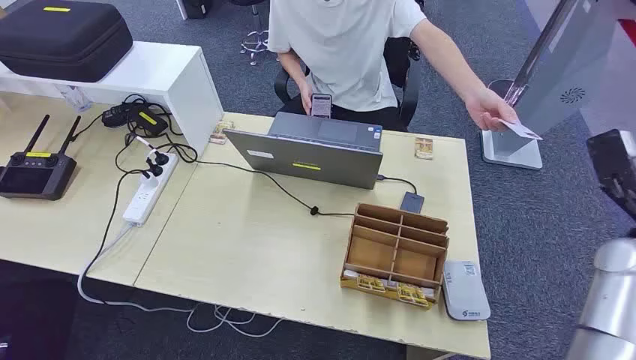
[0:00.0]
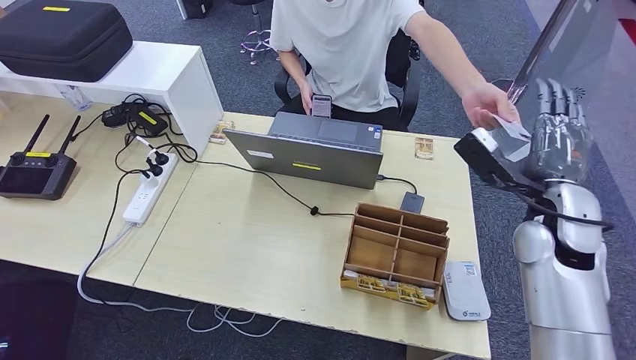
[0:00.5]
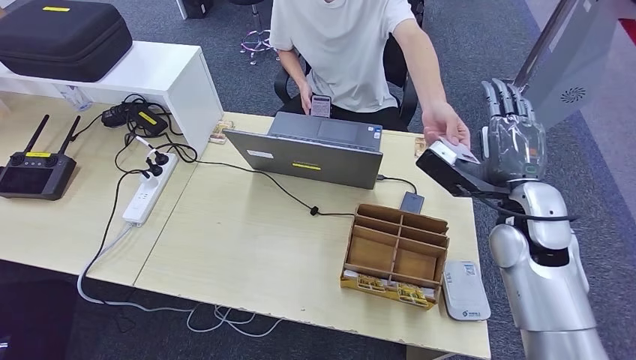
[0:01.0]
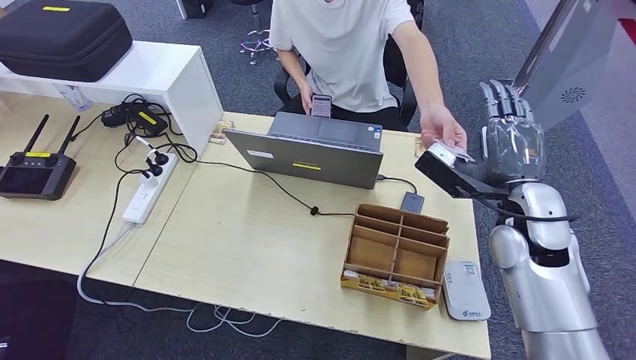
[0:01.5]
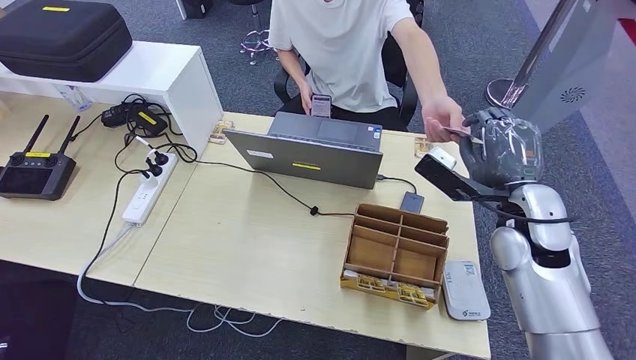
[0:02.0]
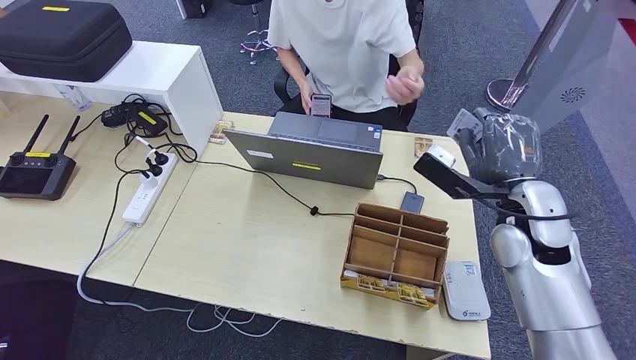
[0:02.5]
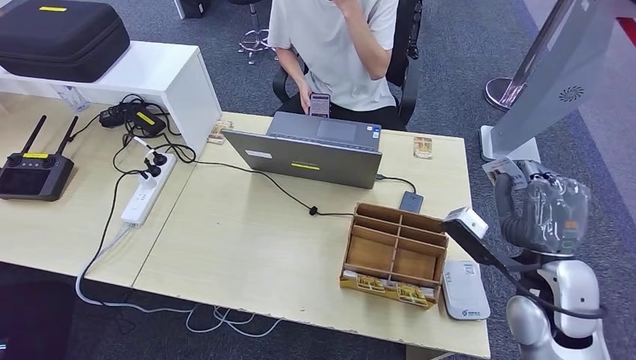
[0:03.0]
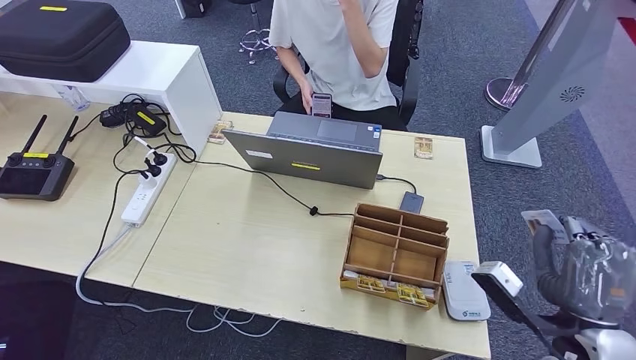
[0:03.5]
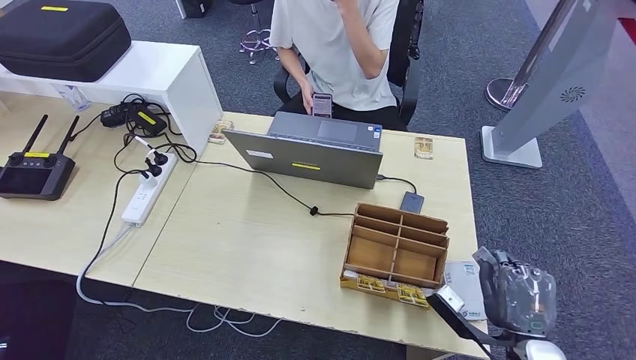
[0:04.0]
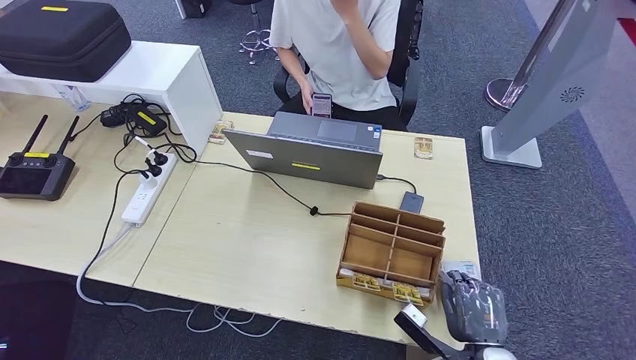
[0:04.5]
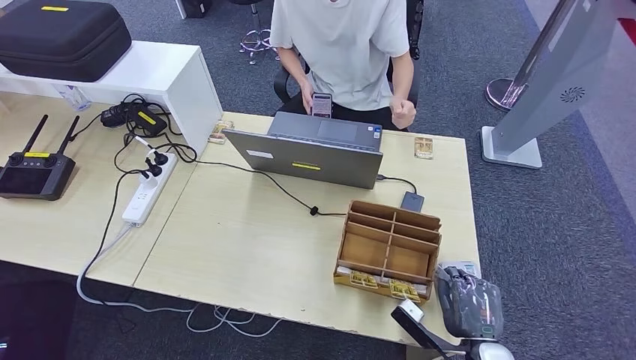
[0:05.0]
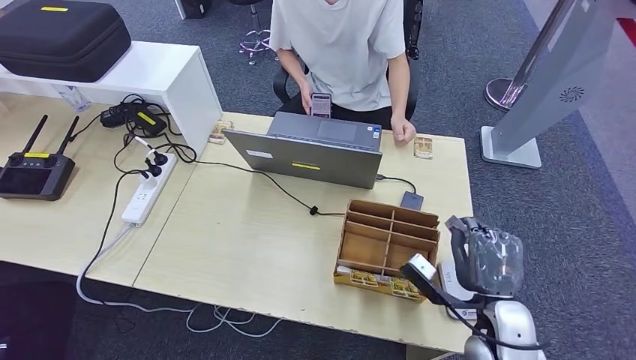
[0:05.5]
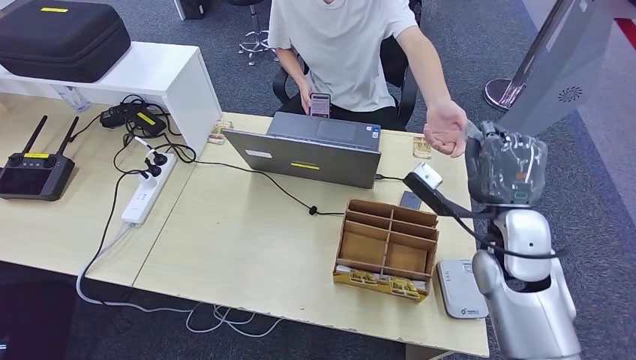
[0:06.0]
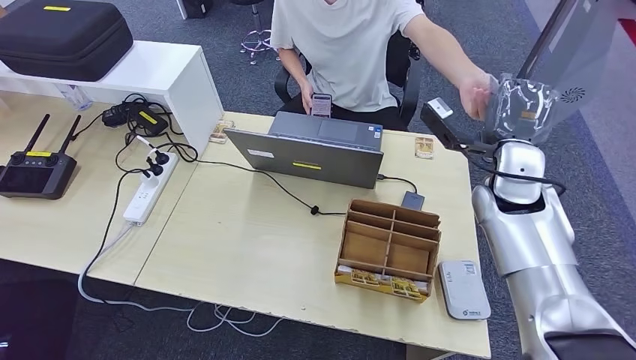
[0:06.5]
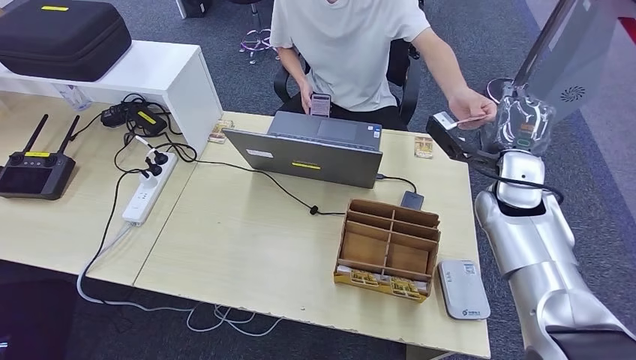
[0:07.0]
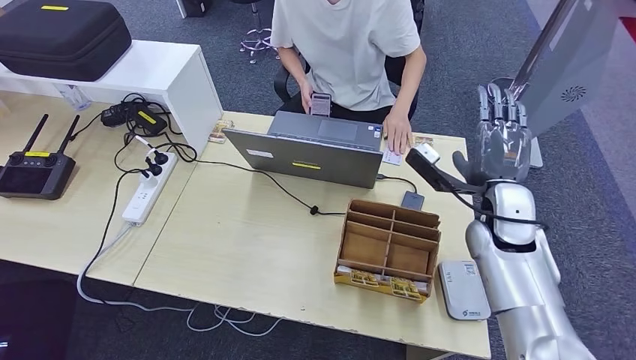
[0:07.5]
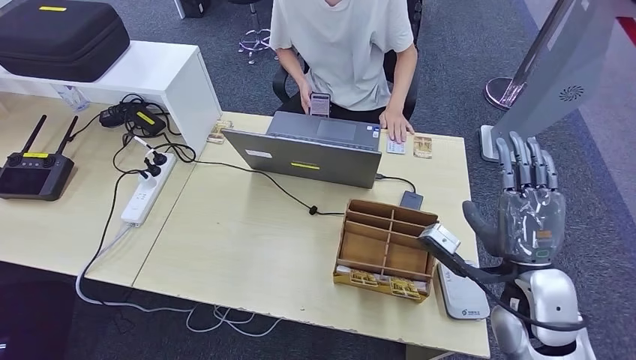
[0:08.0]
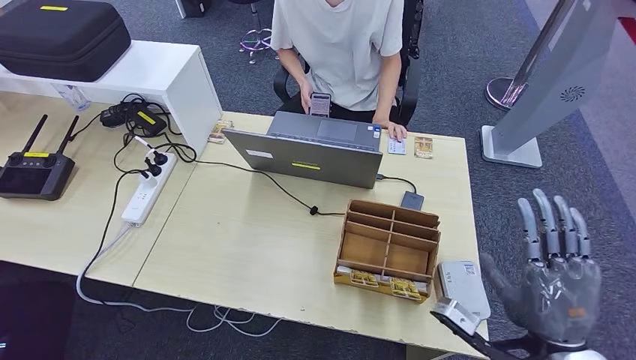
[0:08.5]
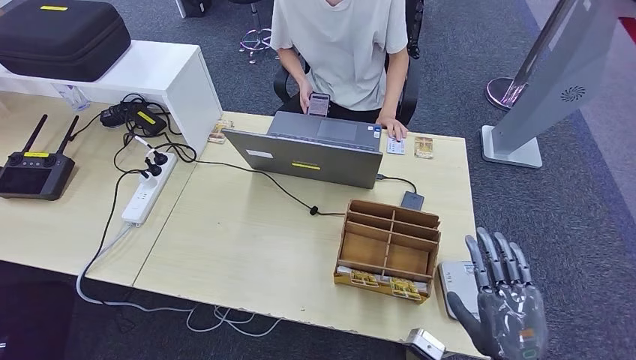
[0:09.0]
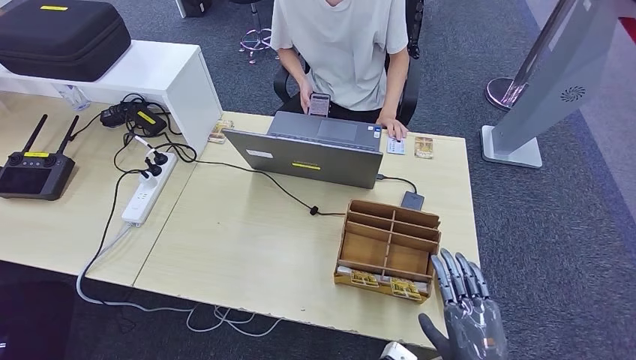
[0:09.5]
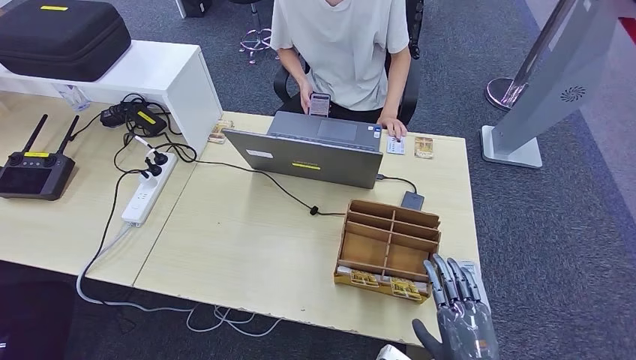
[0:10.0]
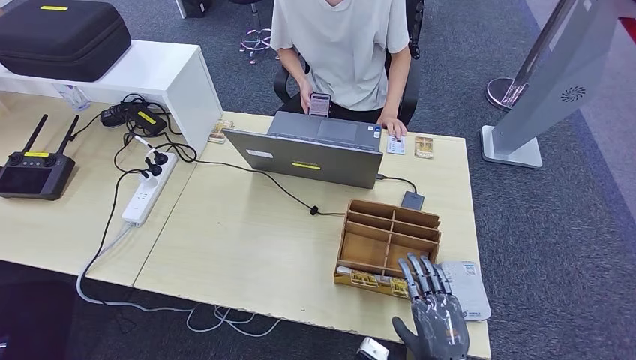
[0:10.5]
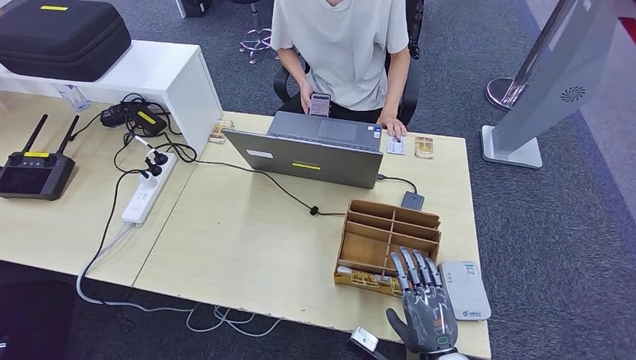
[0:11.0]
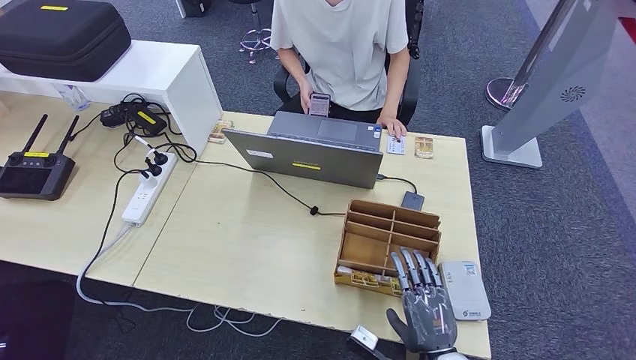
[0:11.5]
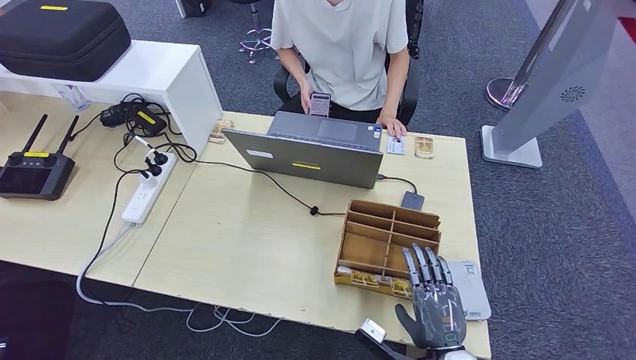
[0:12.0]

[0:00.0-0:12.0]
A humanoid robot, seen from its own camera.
Step, 0:00.0 to 0:03.5: Take the ID card from the person's hand.
Step, 0:04.0 to 0:05.0: Place the ID card on the card reader.
Step, 0:05.5 to 0:07.0: Hand the ID card to the person.
0:02.0 to 0:04.0: The right hand travels backward and downward by approximately 25 cm.
0:04.0 to 0:06.0: The right hand heads upward, forward and to the left, covering roughly 20 cm.
0:06.0 to 0:08.0: The right hand is displaced backward by some 5 cm.
0:08.0 to 0:10.0: The right hand travels backward and downward by about 20 cm.
0:10.0 to 0:12.0: The right hand shifts by roughly 5 cm.

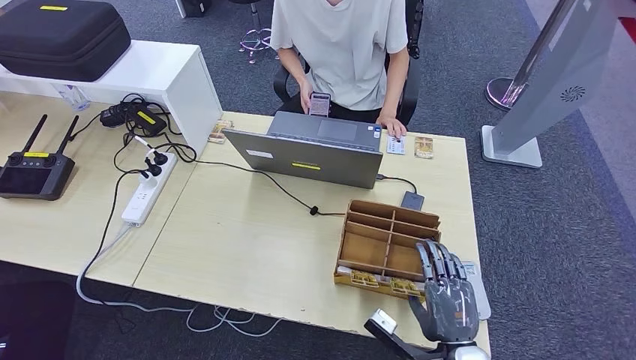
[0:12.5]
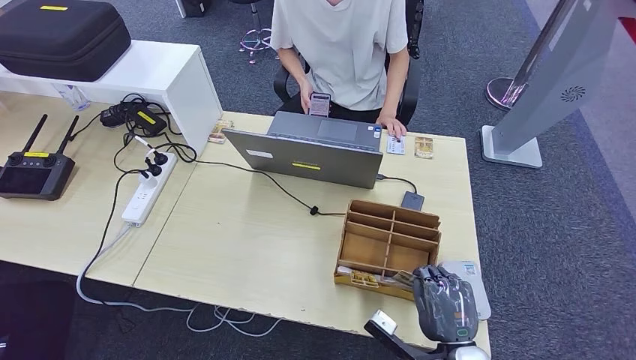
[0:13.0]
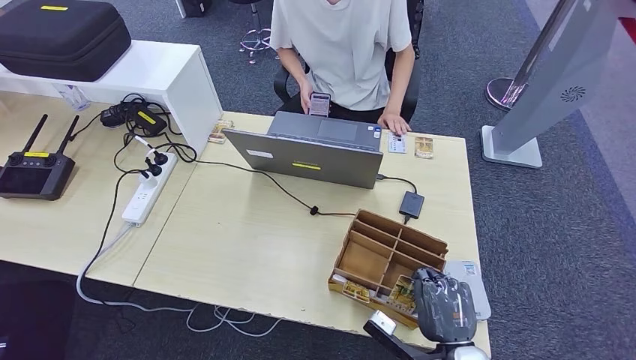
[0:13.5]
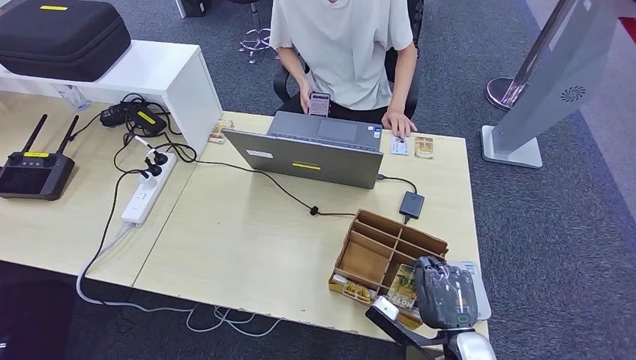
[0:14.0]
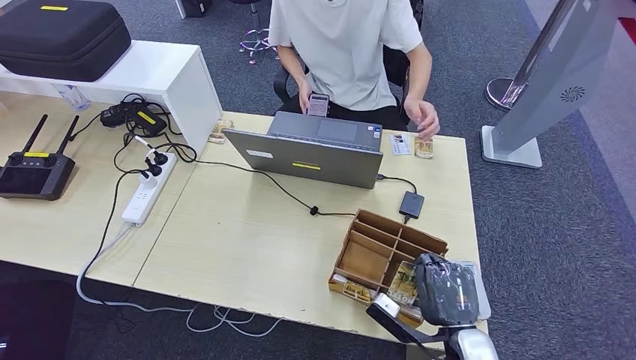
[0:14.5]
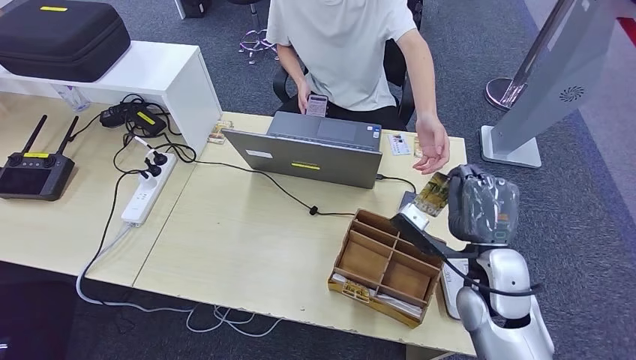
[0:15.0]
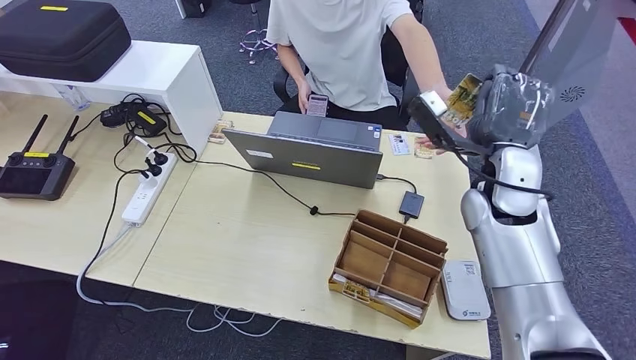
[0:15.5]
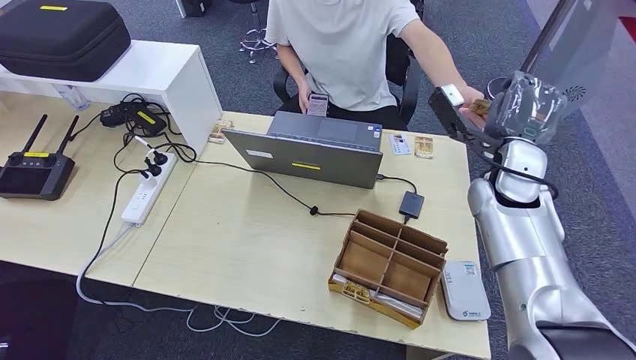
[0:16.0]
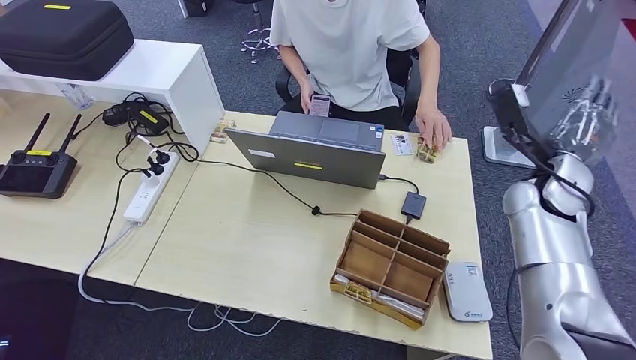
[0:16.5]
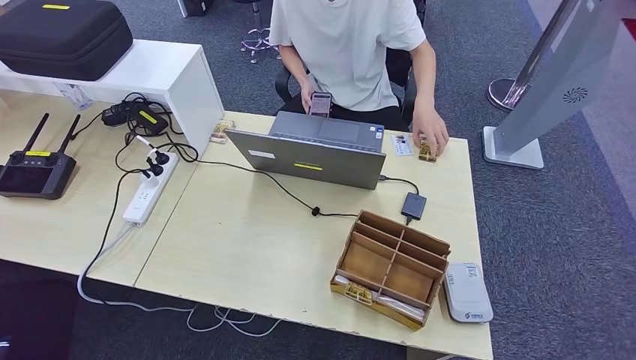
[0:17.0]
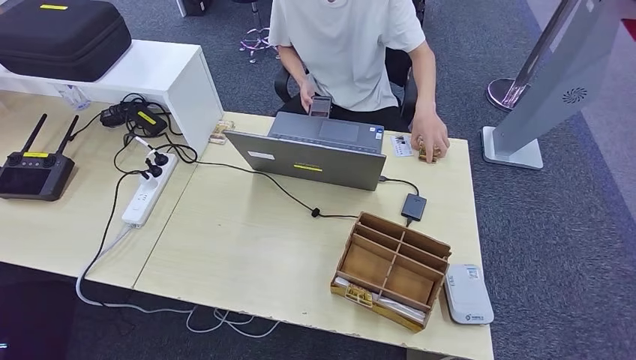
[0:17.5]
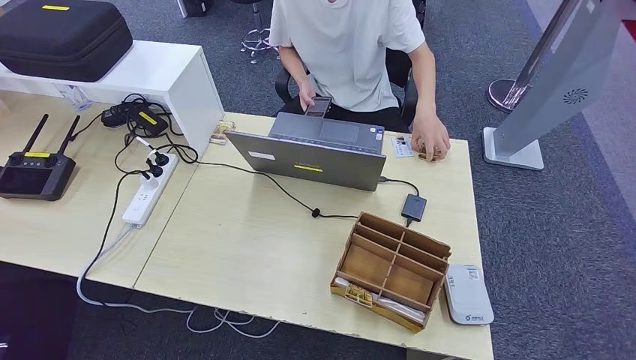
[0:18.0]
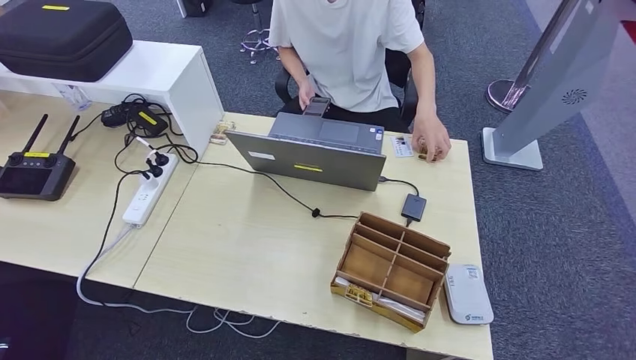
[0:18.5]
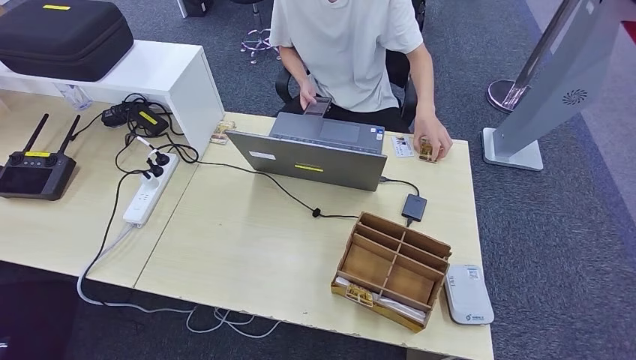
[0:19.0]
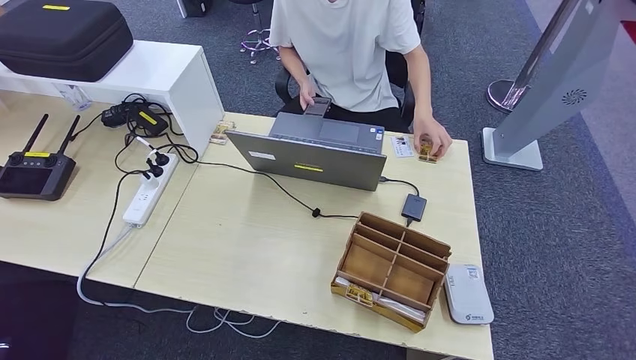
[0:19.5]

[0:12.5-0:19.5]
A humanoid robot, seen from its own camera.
Step, 0:12.5 to 0:14.5: Pick up the room key from the key card box.
Step, 0:15.0 to 0:19.5: Hand the room key to the person.
0:12.5 to 0:14.5: The hands stay close to where they were, moving slightly.
0:14.5 to 0:16.0: The right hand heads forward and upward, covering some 30 cm.
0:16.0 to 0:17.5: The right hand travels to the right, backward and downward by approximately 60 cm.
0:17.5 to 0:19.5: The right hand moves to the left and downward, approximately 40 cm.
